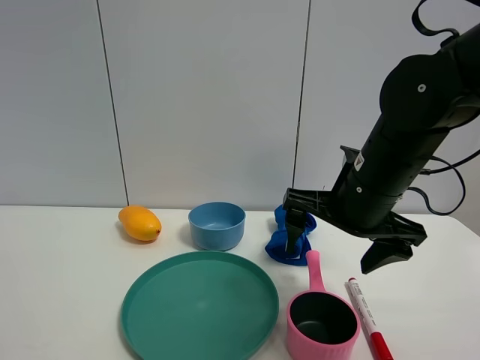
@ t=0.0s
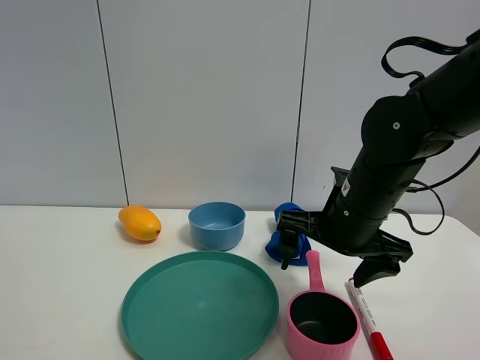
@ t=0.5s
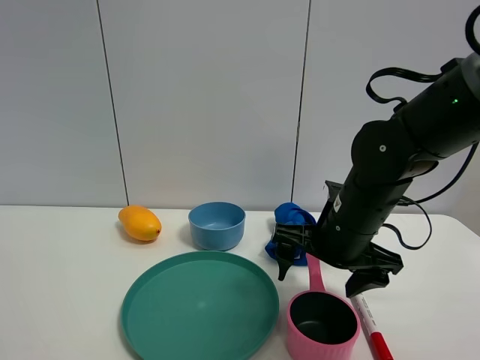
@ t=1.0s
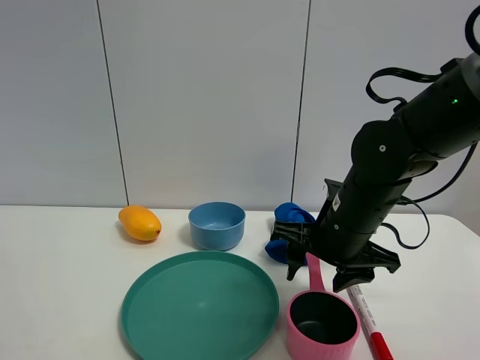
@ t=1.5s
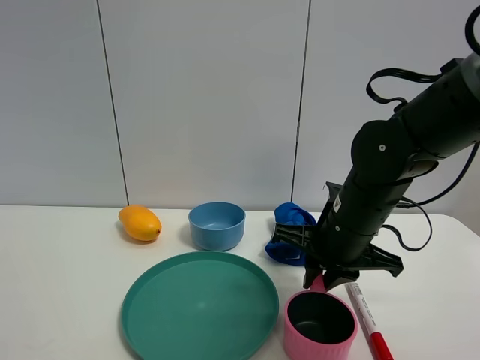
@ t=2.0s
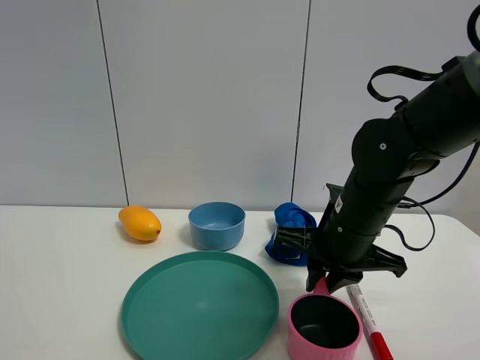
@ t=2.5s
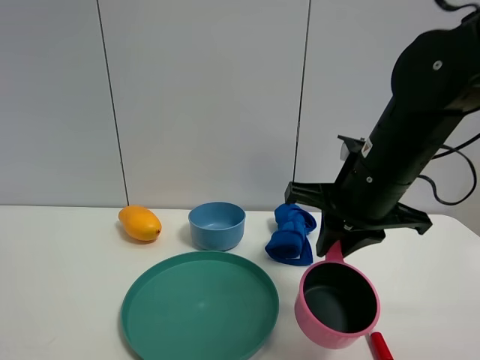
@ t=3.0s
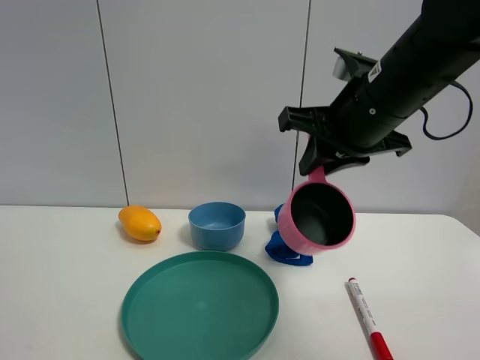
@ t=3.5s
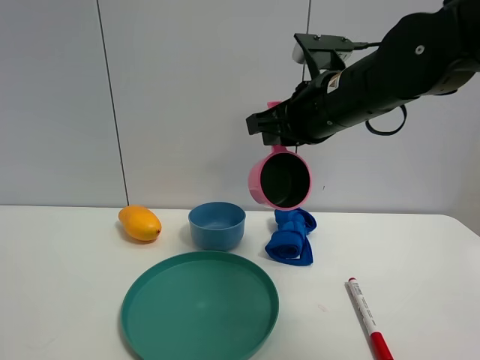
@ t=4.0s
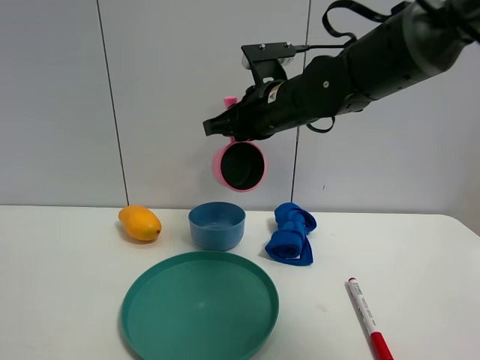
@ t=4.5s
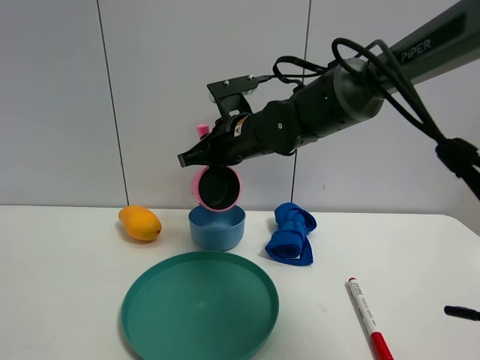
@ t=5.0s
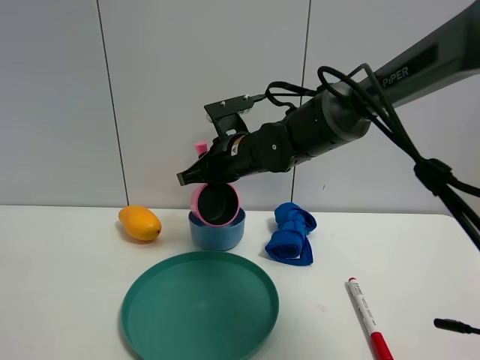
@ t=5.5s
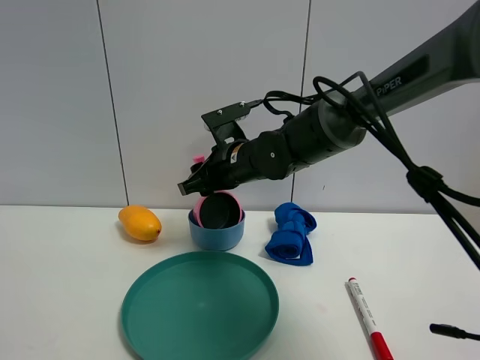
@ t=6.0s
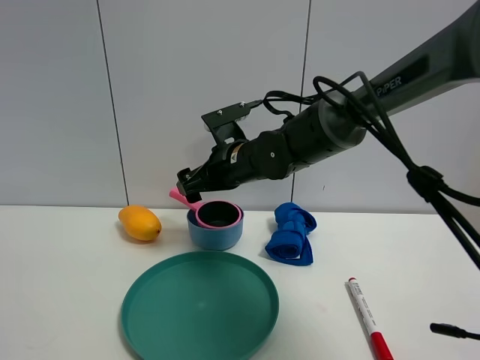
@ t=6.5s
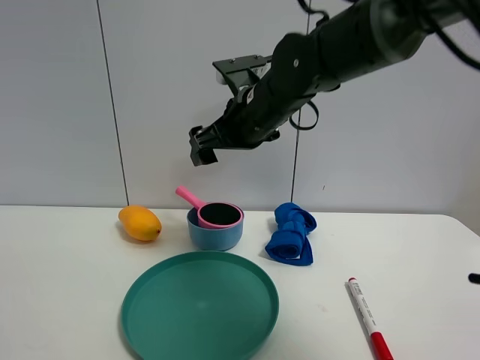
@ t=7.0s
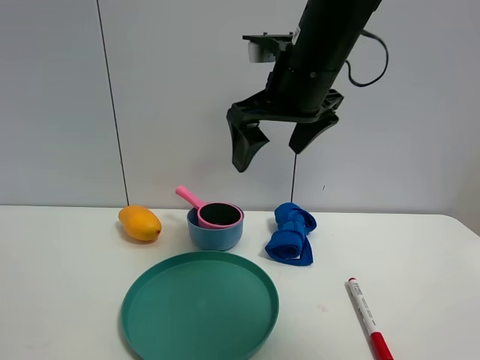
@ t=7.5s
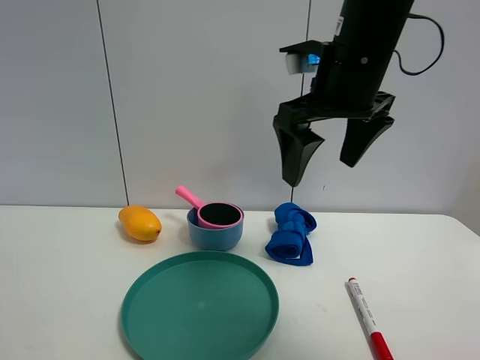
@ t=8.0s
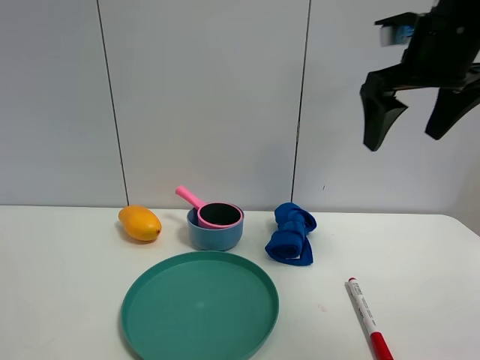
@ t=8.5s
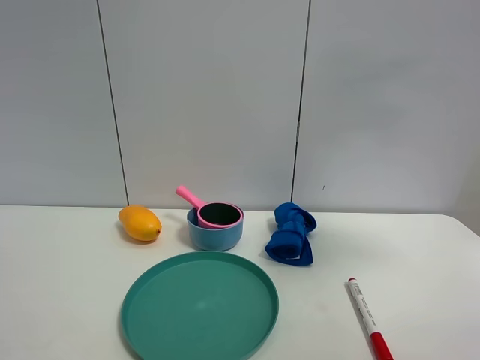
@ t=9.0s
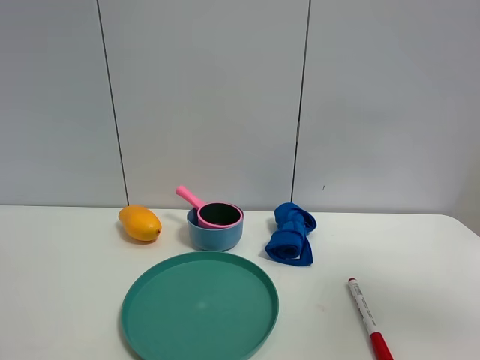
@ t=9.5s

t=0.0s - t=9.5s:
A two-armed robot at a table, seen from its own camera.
Task of the whole recording: the gripper move the object.
Step, t=0.0s - t=2.0s: Grasp the pink pot with the right gripper.
Step, t=2.5s - t=6.5s: Place the pink pot into the blue bowl with the right gripper.
t=0.0s - t=2.0s: The right gripper moves downward, about 5 cm, and closes up.
t=2.0s - t=4.0s: The right gripper heads upward, covering approximately 10 cm.
t=4.0s - t=5.5s: The right gripper is displaced to the left, downward and forward by some 15 cm.
t=5.5s - t=7.5s: The right gripper is displaced upward, backward and to the right by some 20 cm, and opens its fingers.
t=7.5s - t=9.5s: The right gripper is displaced to the right and backward by about 30 cm.

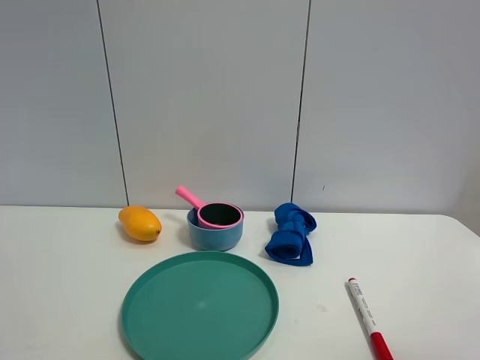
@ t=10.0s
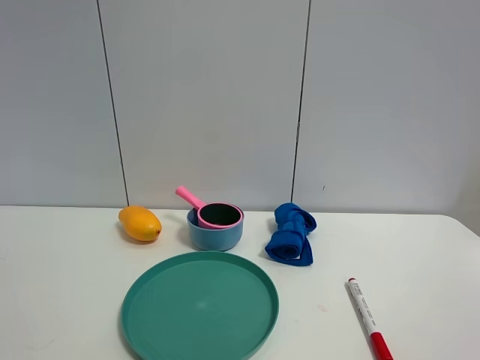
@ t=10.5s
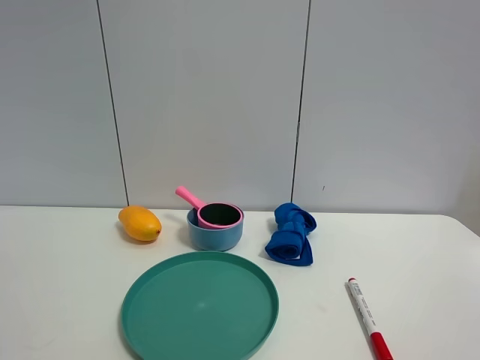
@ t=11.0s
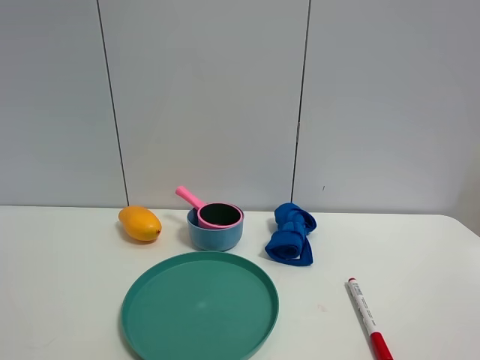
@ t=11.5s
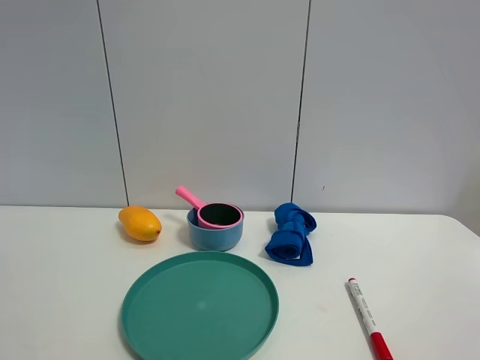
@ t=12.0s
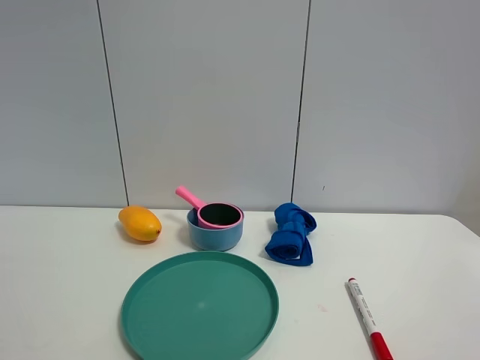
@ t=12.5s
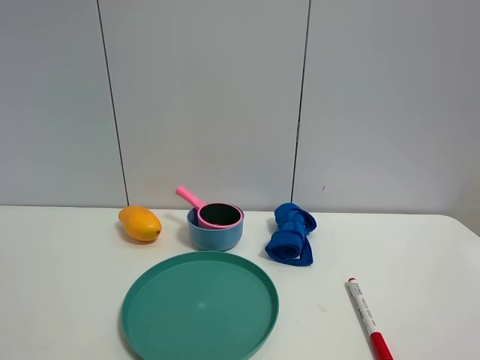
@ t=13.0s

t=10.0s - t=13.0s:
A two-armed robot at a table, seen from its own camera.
Task of the whole recording: the gripper move the object.
t=11.5s - t=13.0s: Both grippers stay put.

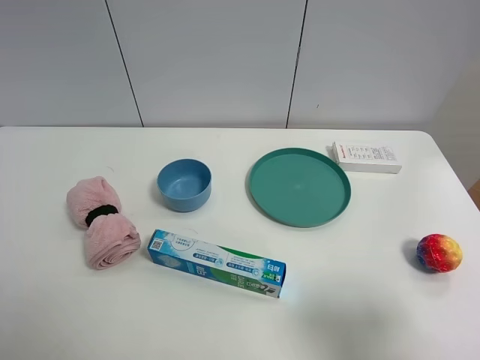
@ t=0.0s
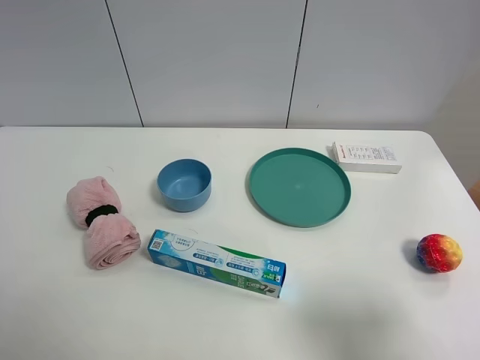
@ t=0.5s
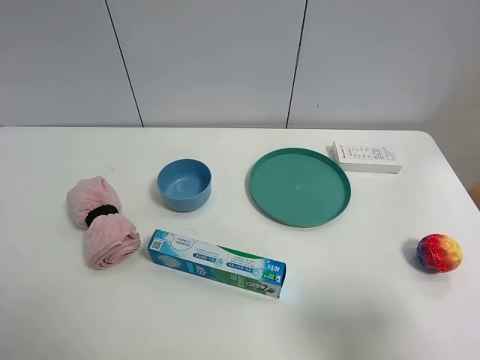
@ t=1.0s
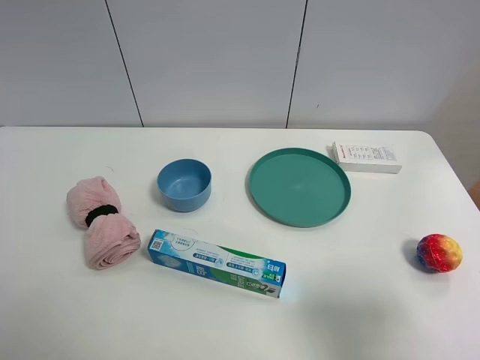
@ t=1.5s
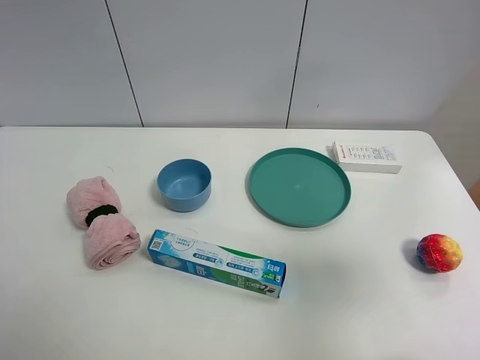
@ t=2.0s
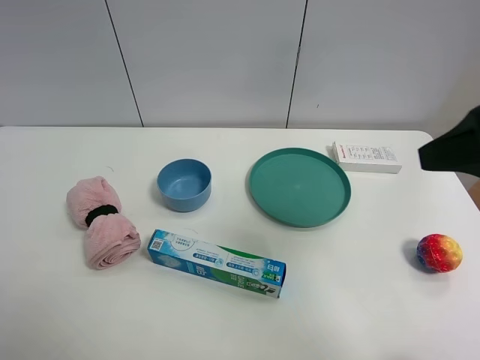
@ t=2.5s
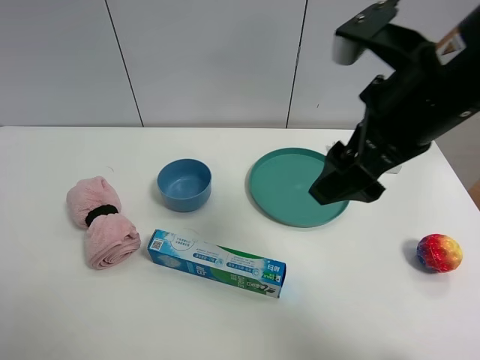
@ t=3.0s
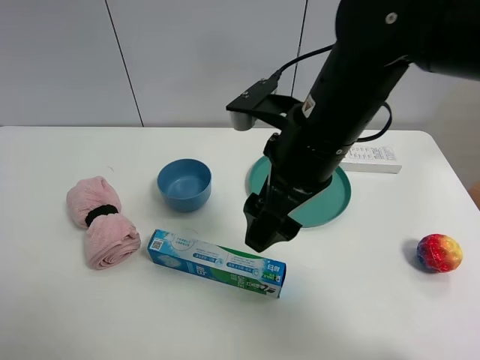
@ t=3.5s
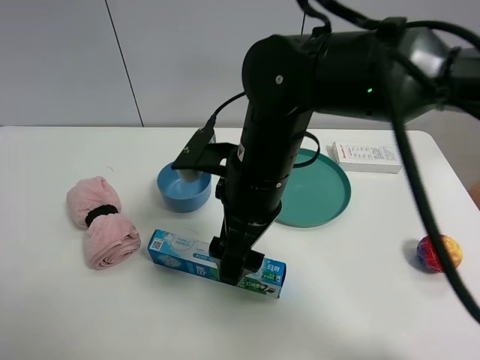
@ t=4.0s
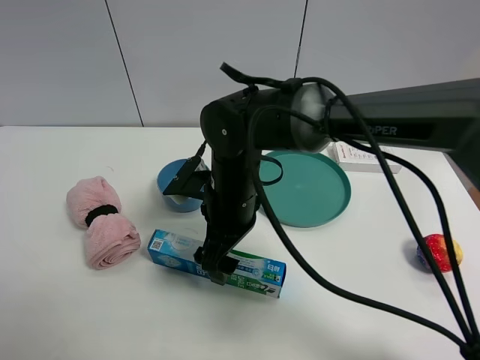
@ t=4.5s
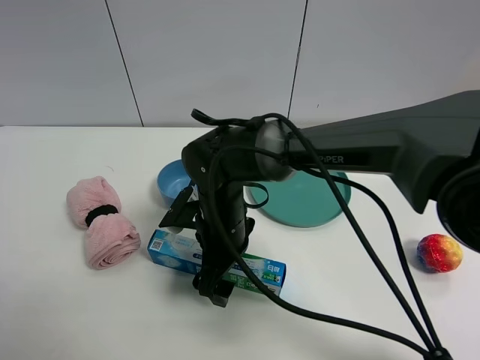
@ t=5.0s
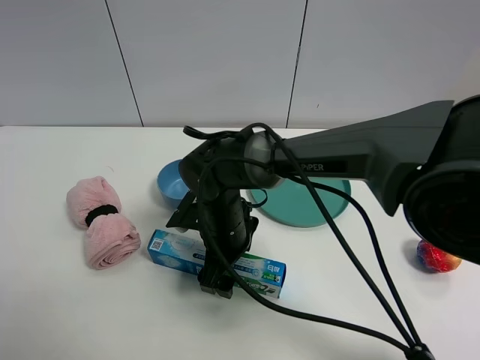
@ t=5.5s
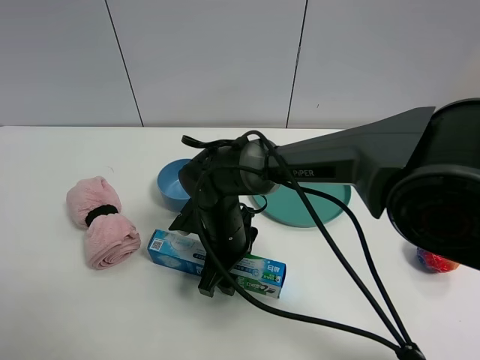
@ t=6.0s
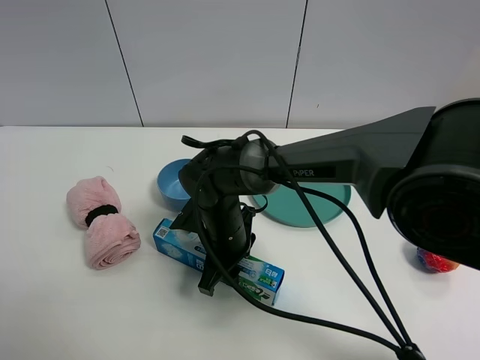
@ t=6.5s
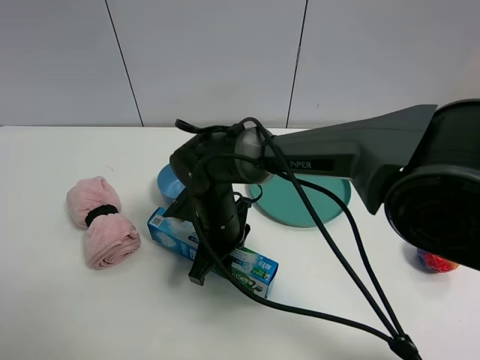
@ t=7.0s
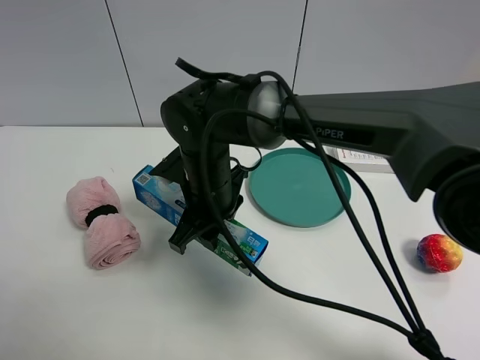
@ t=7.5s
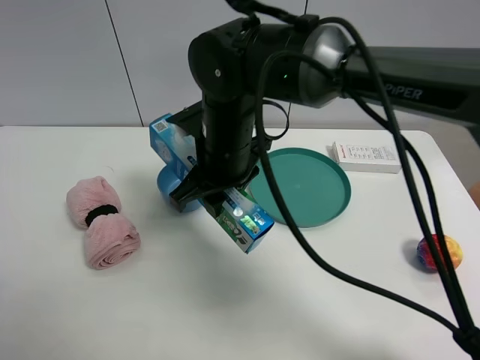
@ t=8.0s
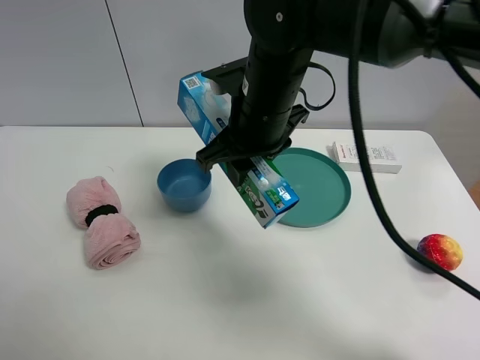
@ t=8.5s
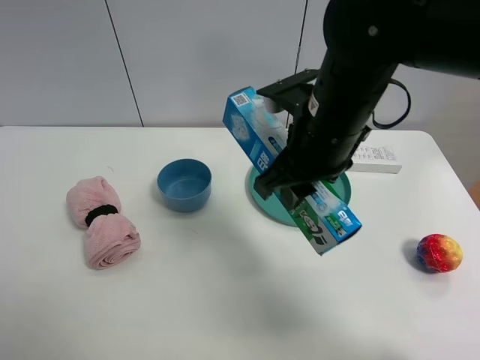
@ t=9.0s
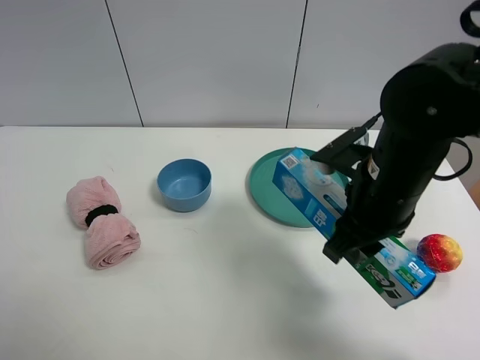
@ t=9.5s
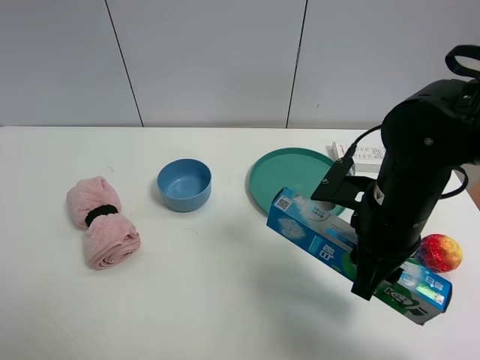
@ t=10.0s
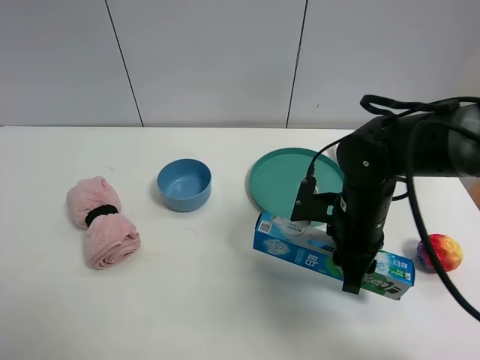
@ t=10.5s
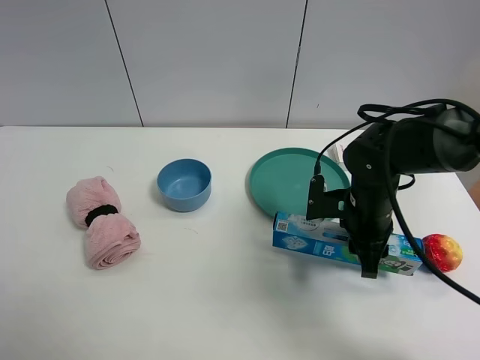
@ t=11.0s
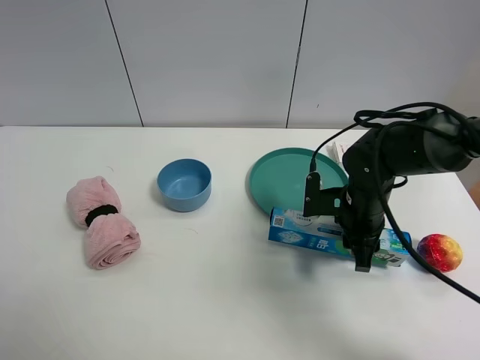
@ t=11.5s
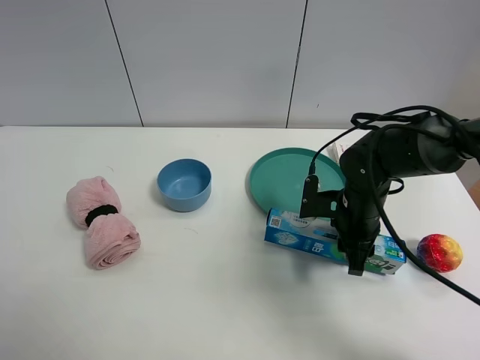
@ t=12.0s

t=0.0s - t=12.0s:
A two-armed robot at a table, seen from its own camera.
Task of the whole recording: the gripper move the object.
Step, t=0.0s - t=6.0s: Grasp the toothpaste with the right gripper.
t=0.0s - t=2.0s: The right gripper shifts approximately 10 cm upward and forward.
t=2.0s - t=4.0s: The right gripper shifts about 35 cm to the left, forward and downward.
t=4.0s - t=6.0s: The right gripper travels downward by approximately 15 cm, and closes.
t=6.0s - t=8.0s: The right gripper shifts about 15 cm upward, and closes.
t=8.0s - t=10.0s: The right gripper shifts about 20 cm to the right and backward.
t=10.0s - t=12.0s: The right gripper travels downward and forward by approximately 15 cm.

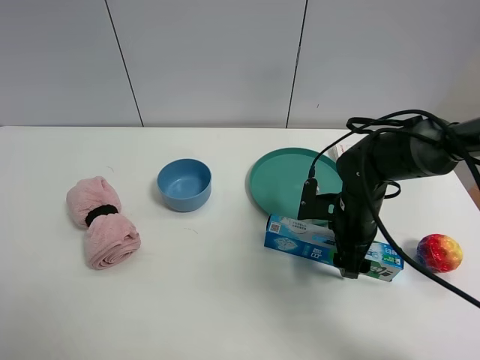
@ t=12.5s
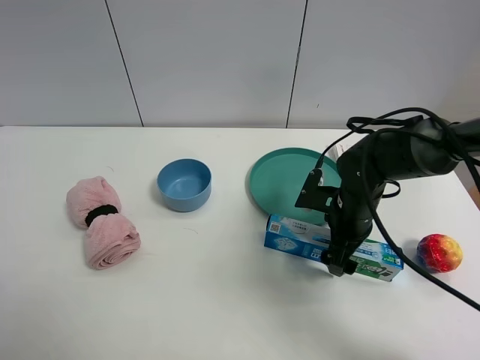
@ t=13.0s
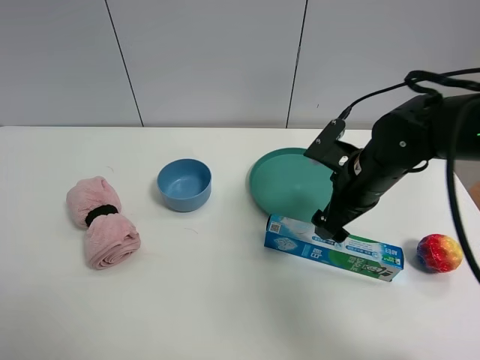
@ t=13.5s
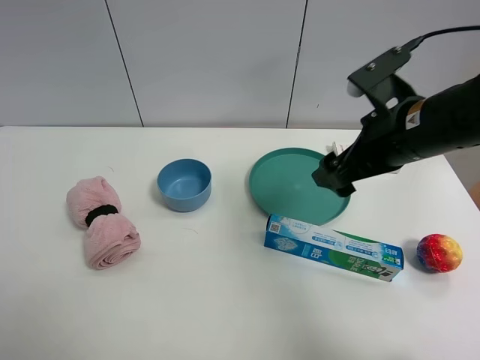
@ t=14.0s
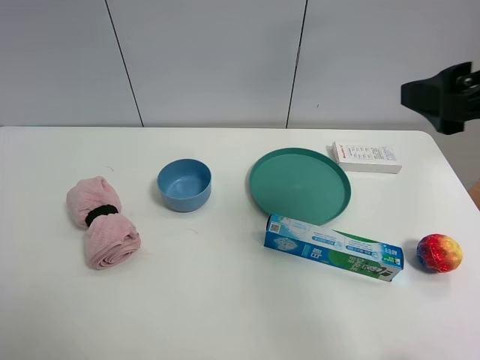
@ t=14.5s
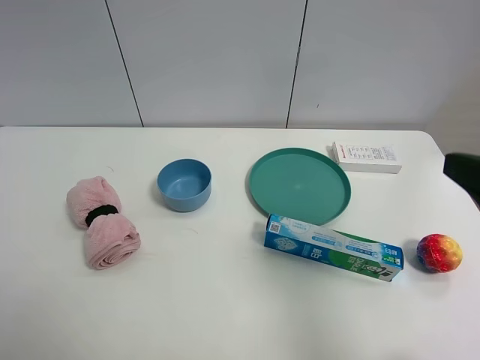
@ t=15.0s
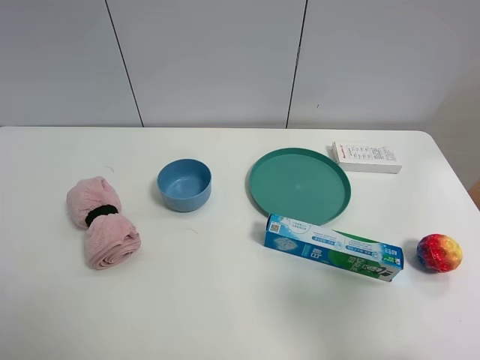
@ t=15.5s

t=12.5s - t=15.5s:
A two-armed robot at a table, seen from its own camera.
Task of the whole recording: the gripper move the object.
t=12.5s - t=14.0s: The right gripper goes about 20 cm upward.
t=14.0s - t=15.5s: The right gripper goes roughly 25 cm backward and to the right.
